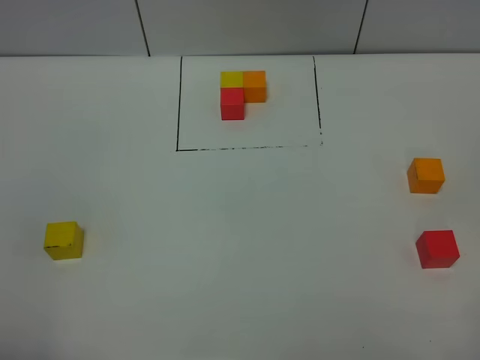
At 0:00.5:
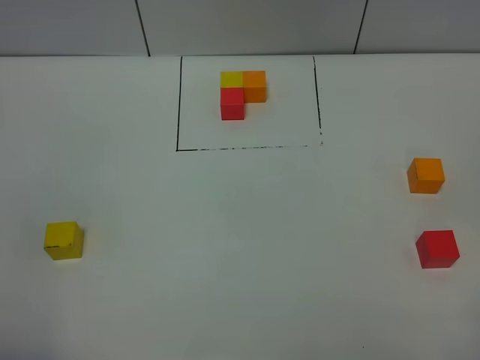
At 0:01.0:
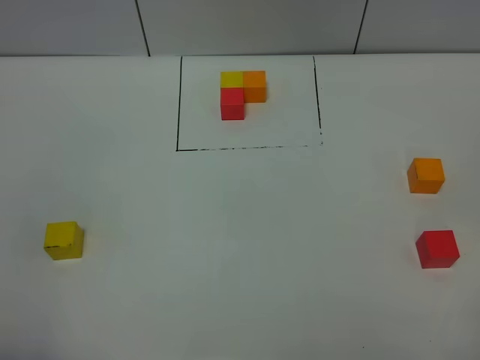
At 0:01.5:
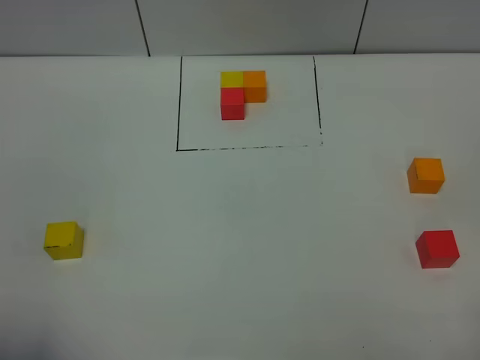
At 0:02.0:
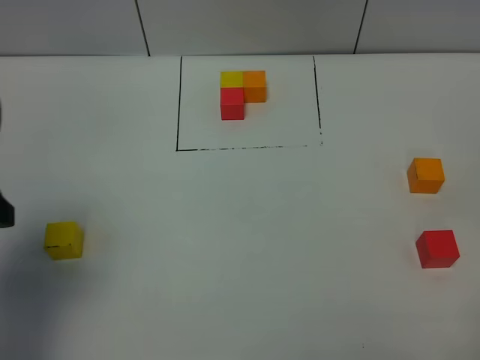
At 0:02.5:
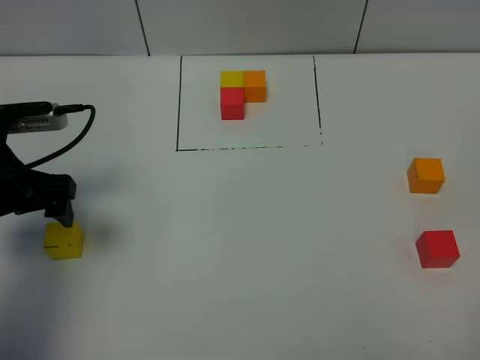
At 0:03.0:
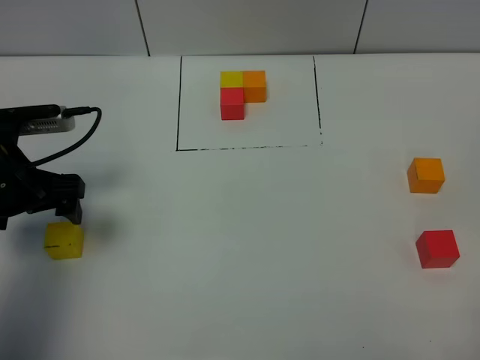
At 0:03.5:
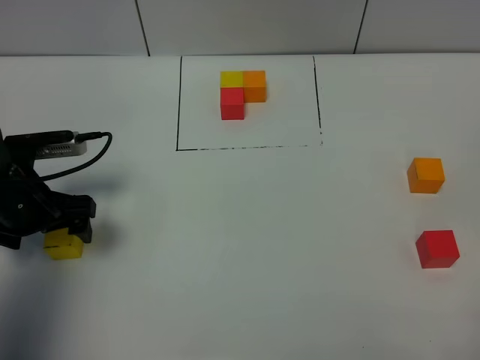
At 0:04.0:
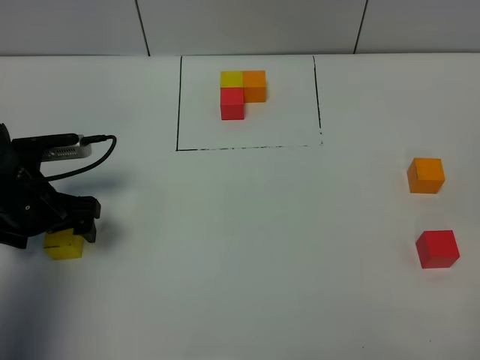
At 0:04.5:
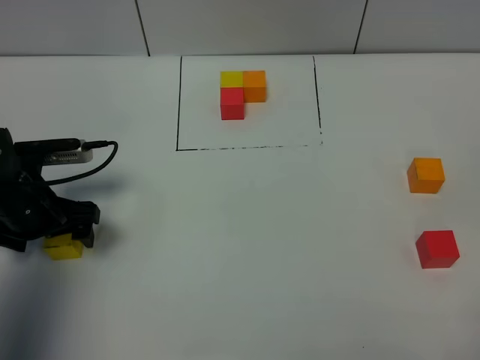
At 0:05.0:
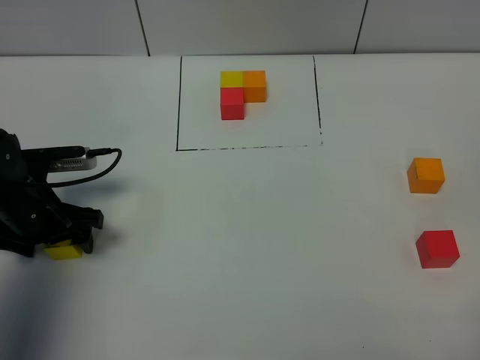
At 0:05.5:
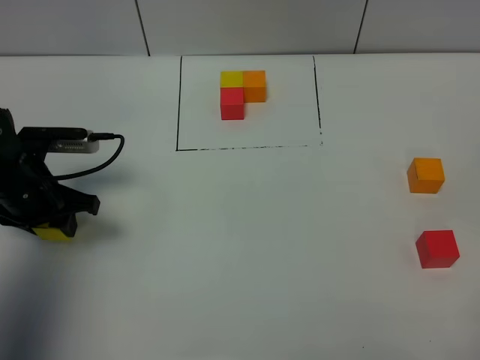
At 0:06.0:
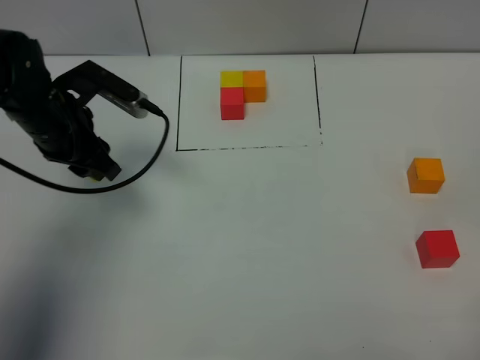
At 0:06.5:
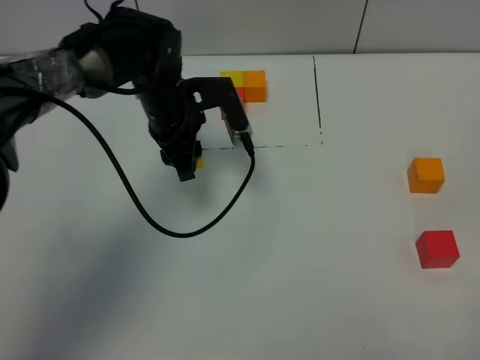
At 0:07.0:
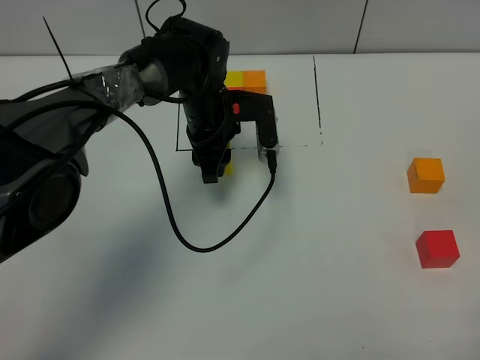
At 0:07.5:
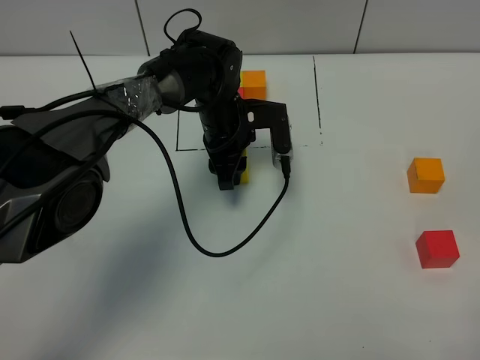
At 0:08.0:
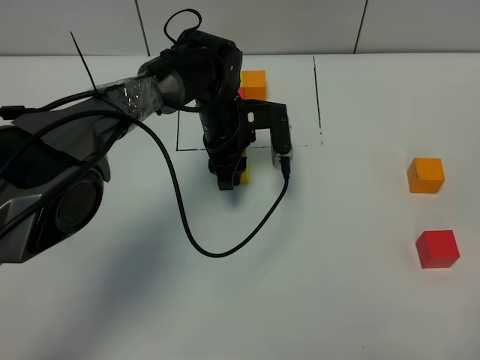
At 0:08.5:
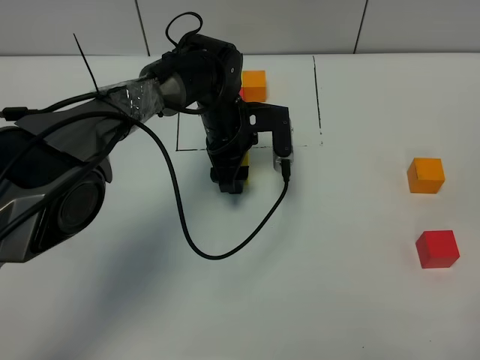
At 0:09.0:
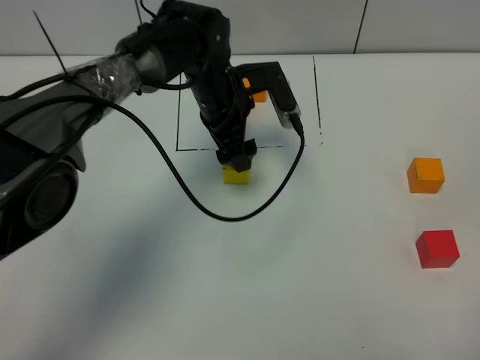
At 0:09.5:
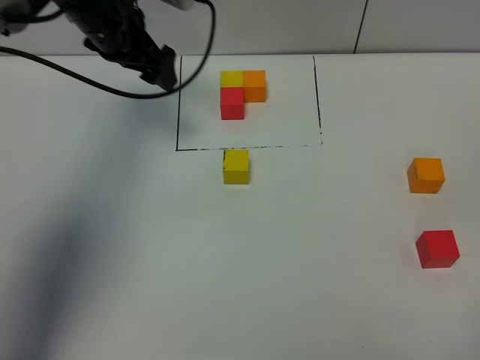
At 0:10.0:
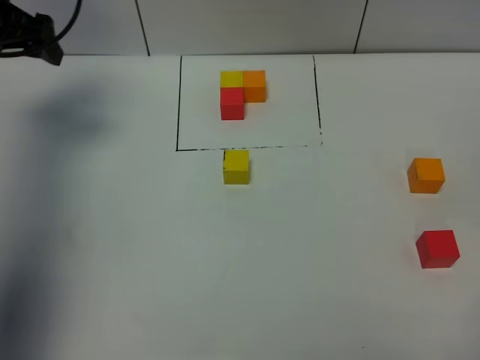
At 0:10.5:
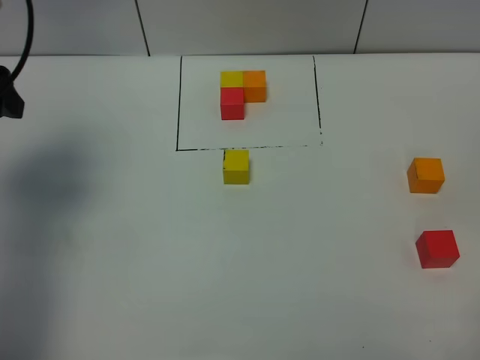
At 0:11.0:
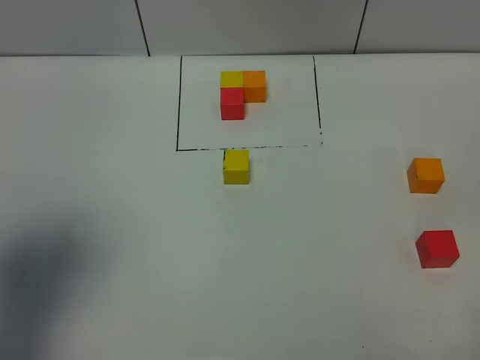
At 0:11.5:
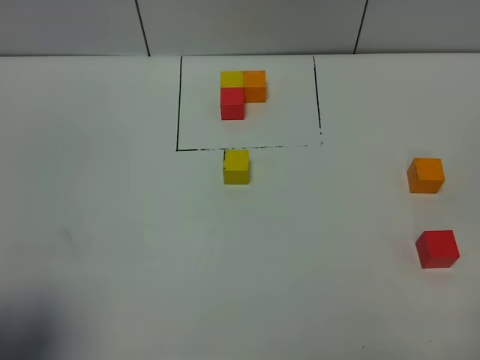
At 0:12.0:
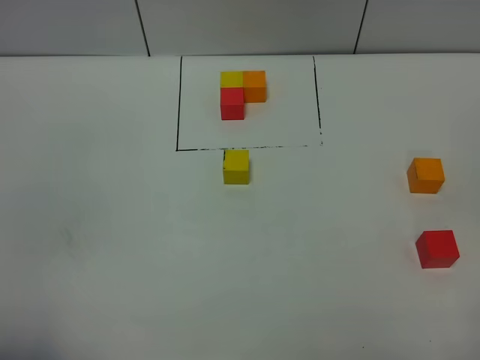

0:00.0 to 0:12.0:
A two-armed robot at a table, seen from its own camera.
Task of the whole recording: According to the building block template in front, assemble the scattered blocks together.
Step, 0:00.0 to 0:08.5: Put the yellow build block in the center of the table.
0:00.0 to 0:02.0: The left gripper travels forward by approximately 20 cm.
0:02.0 to 0:04.0: The left gripper goes approximately 20 cm downward and forward.
0:04.0 to 0:06.0: The left gripper travels forward, upward and to the right by roughly 10 cm, and closes its fingers.
0:06.0 to 0:08.0: The left gripper travels to the right and downward by some 20 cm.
0:08.0 to 0:10.0: The left gripper heads to the left and upward, covering approximately 35 cm, and opens up.
0:10.0 to 0:12.0: The left gripper travels backward by approximately 40 cm.

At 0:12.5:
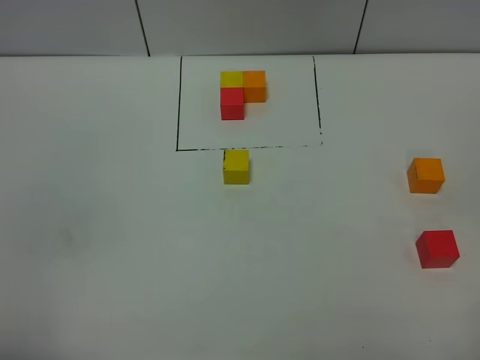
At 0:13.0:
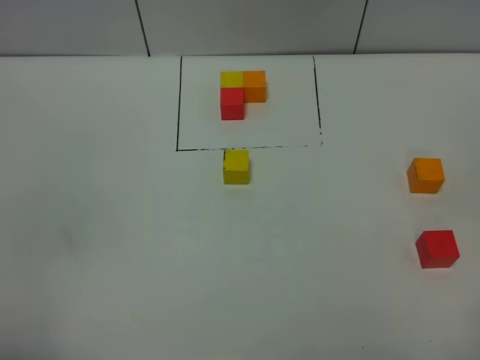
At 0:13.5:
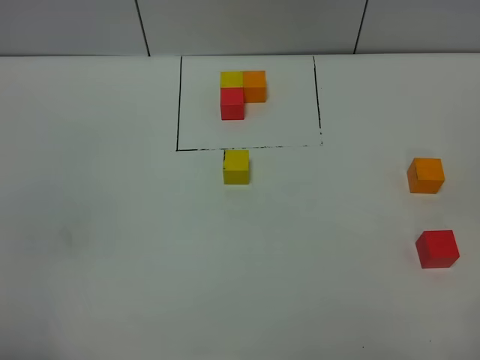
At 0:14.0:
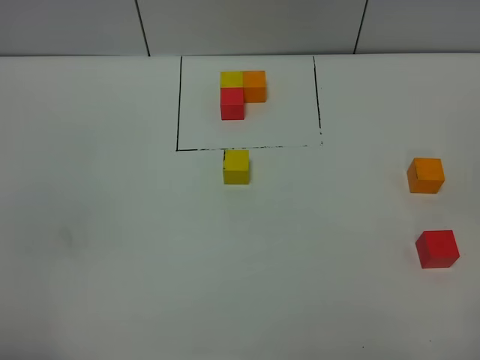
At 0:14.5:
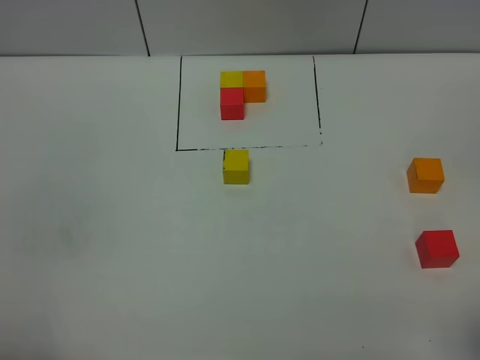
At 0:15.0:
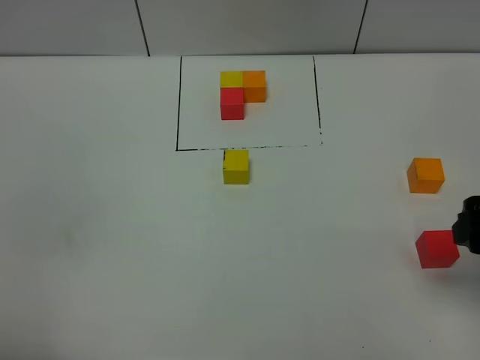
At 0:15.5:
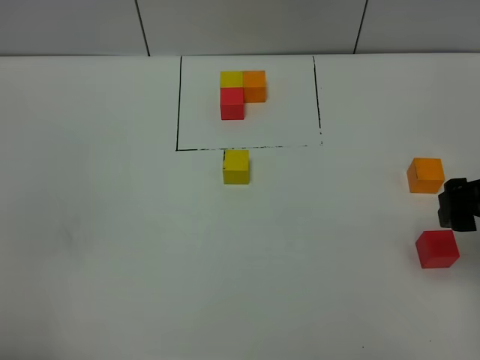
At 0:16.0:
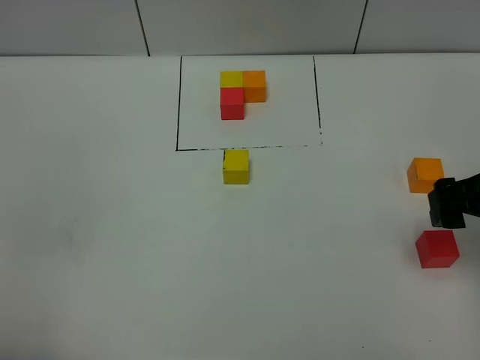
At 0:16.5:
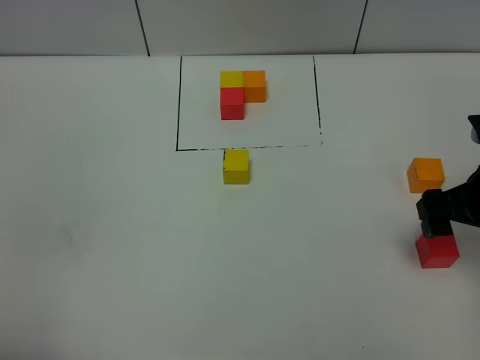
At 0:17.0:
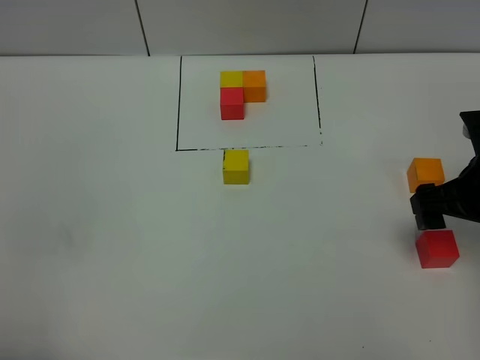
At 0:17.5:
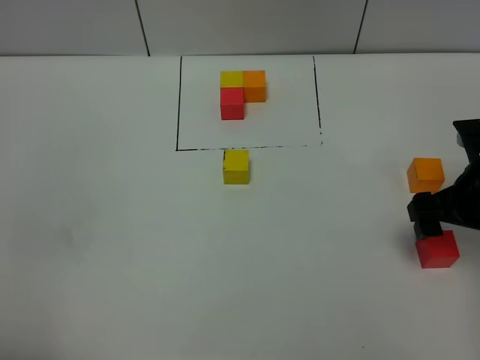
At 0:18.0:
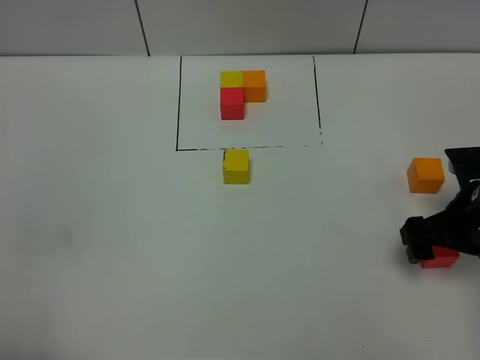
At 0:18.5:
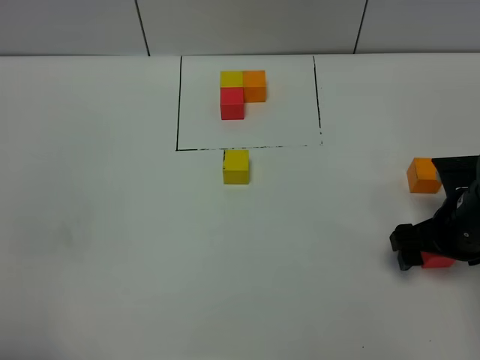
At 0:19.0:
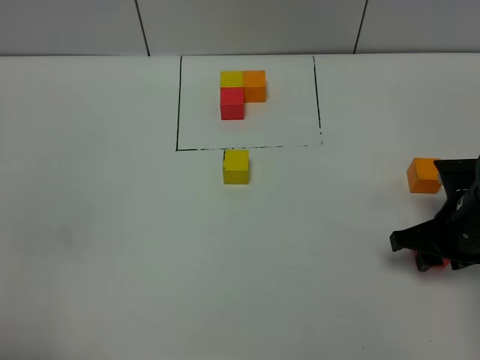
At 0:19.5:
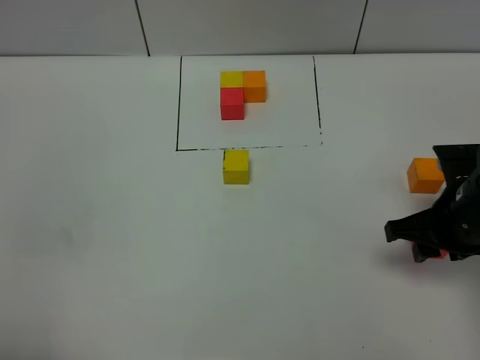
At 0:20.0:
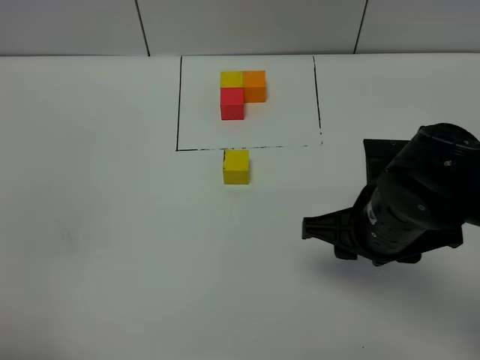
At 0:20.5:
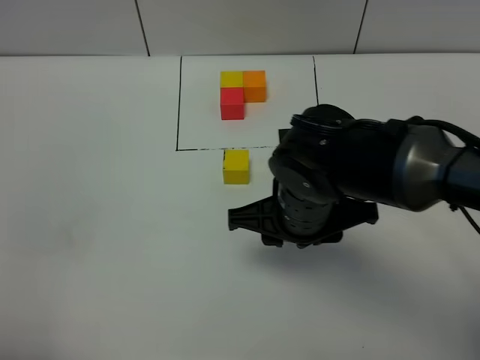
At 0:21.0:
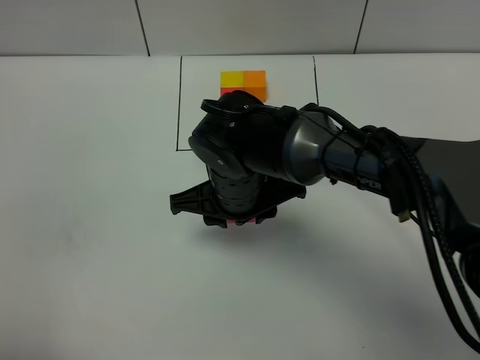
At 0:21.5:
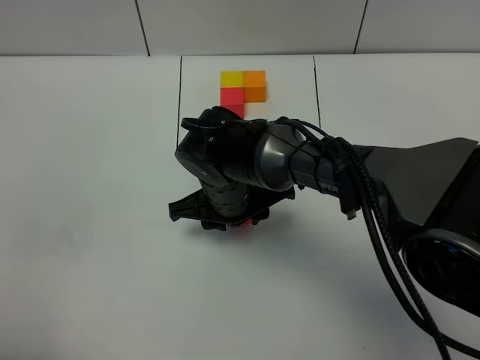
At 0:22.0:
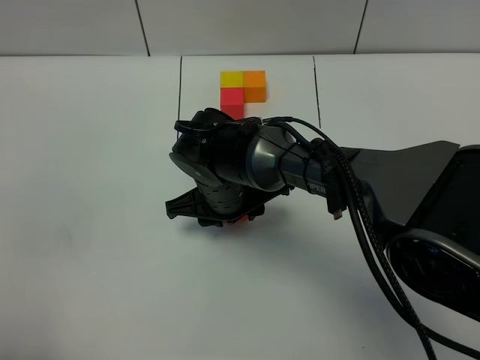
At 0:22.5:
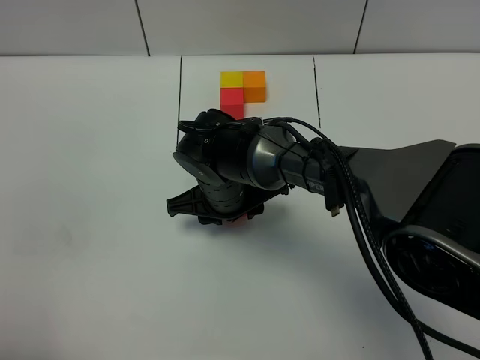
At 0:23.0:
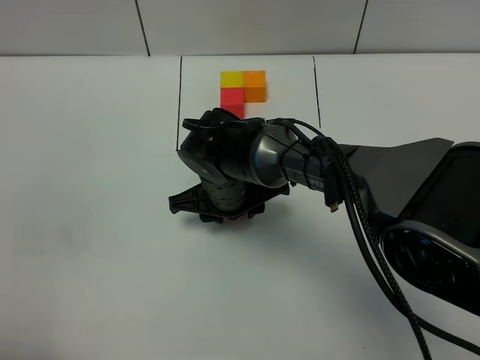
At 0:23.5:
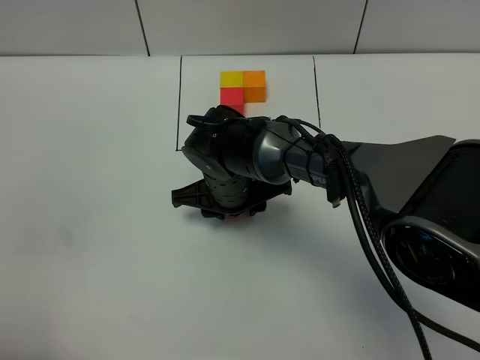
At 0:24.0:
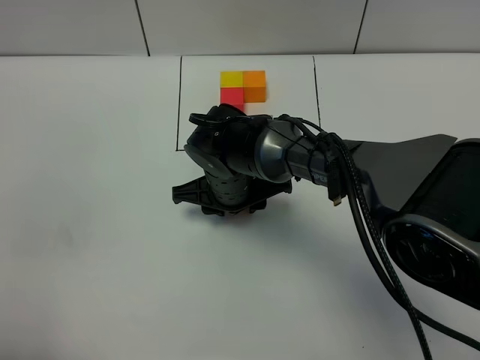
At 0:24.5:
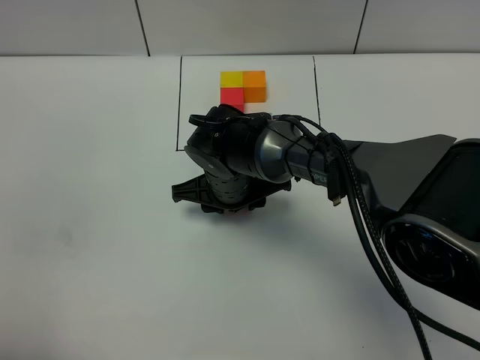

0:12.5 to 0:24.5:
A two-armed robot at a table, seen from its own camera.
Task of the whole recording: According to the building block template in front, assemble the scattered blocks together.
0:14.5 to 0:16.5: The right gripper travels forward and downward by roughly 20 cm.
0:16.5 to 0:18.5: The right gripper heads downward, covering roughly 5 cm.
0:18.5 to 0:20.5: The right gripper goes some 20 cm to the left, and closes up.
0:20.5 to 0:22.5: The right gripper travels forward, downward and to the left by approximately 15 cm.
0:22.5 to 0:24.5: The grippers stay close to where they were, moving slightly.

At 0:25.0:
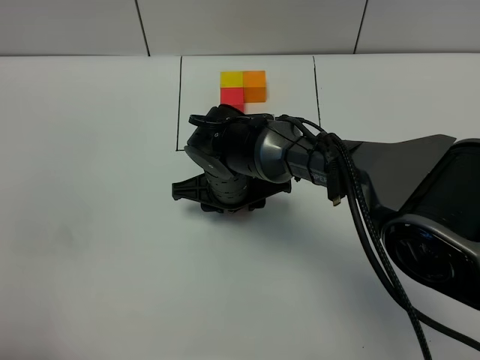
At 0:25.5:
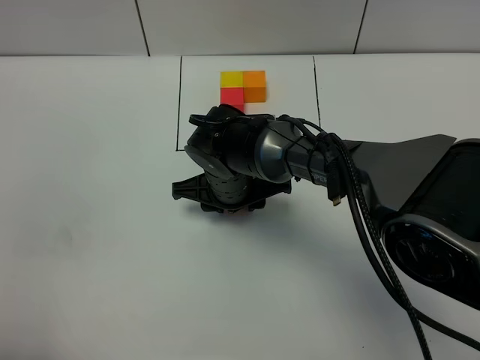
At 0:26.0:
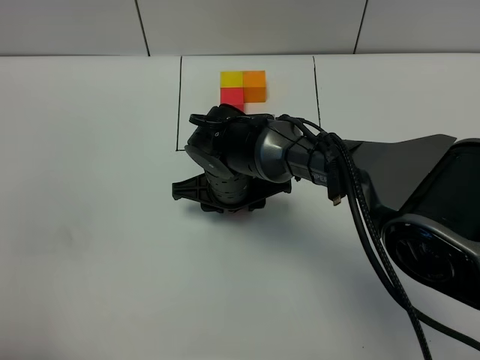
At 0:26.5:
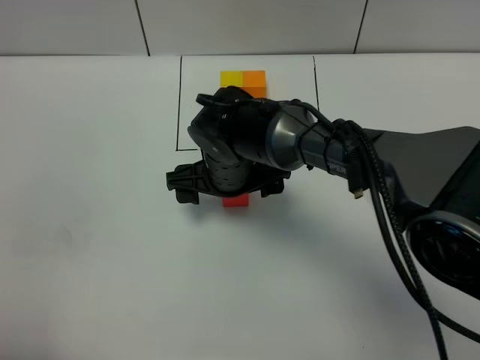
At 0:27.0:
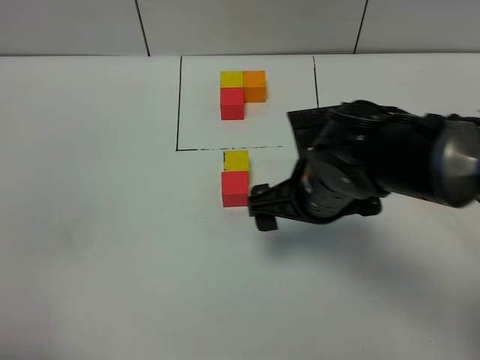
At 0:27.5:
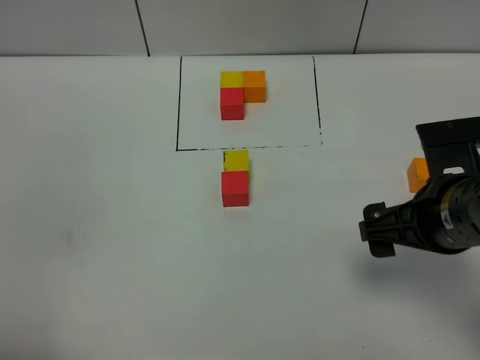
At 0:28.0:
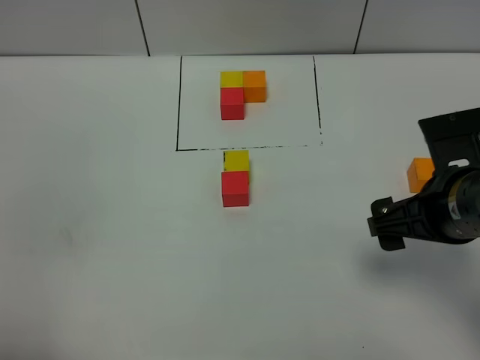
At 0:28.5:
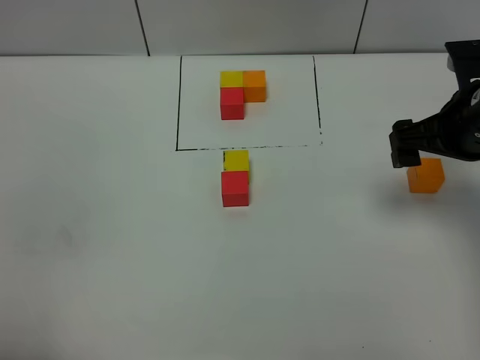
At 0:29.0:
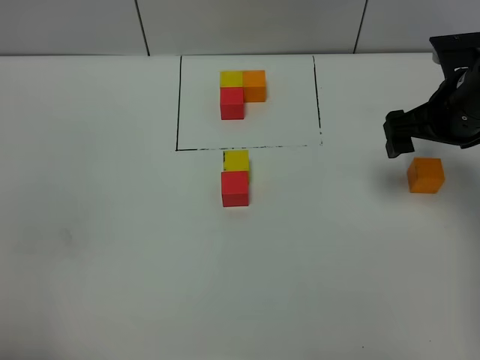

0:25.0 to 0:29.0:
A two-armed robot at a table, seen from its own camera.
Task of the whole recording: According to the building block template in front, assemble the scattered blocks together.
0:25.0 to 0:27.0: The right gripper is displaced to the right, backward and upward by roughly 15 cm, and opens.
0:27.0 to 0:29.0: The right gripper travels to the right and forward by about 20 cm.
